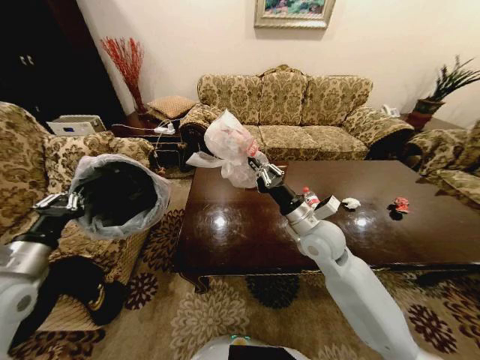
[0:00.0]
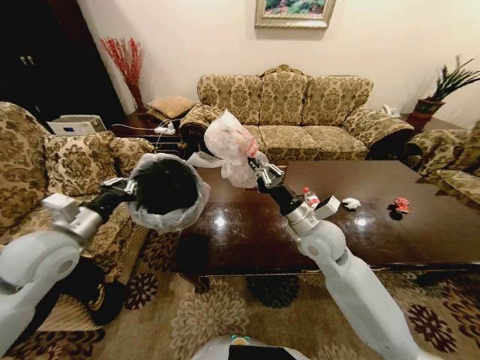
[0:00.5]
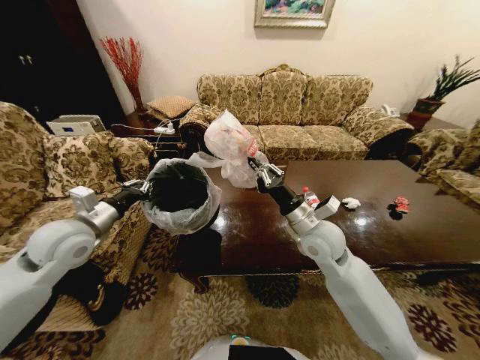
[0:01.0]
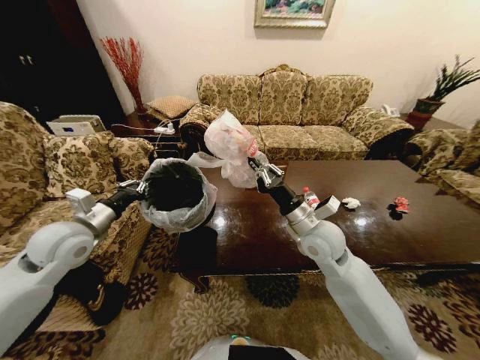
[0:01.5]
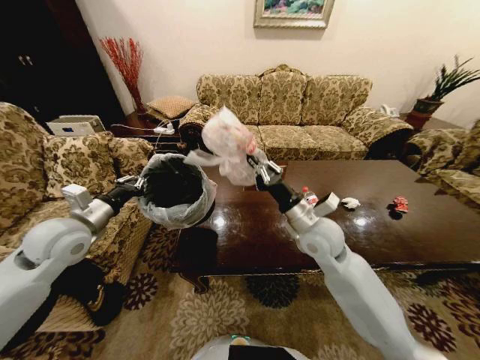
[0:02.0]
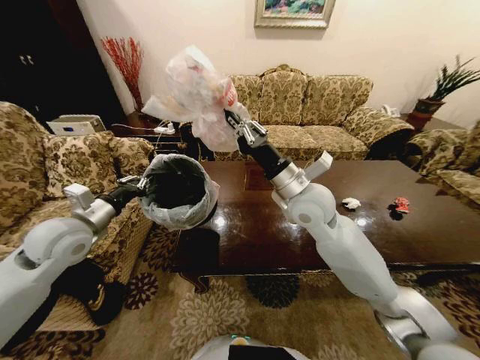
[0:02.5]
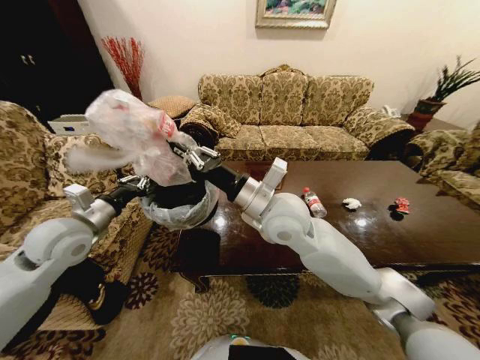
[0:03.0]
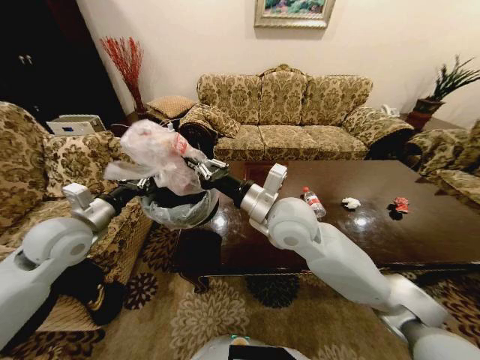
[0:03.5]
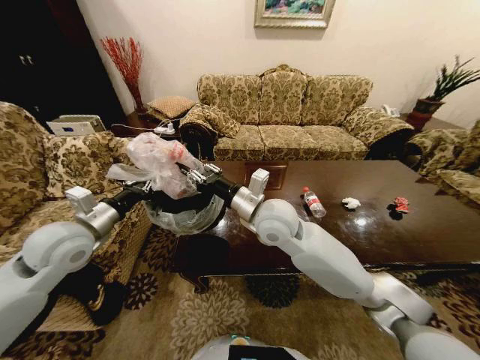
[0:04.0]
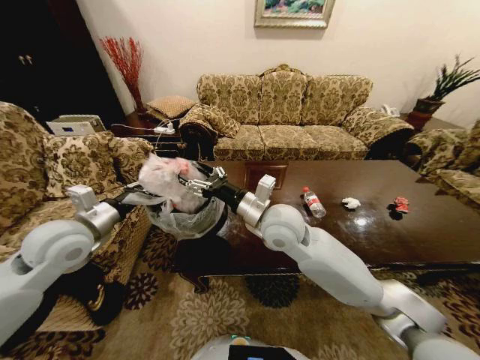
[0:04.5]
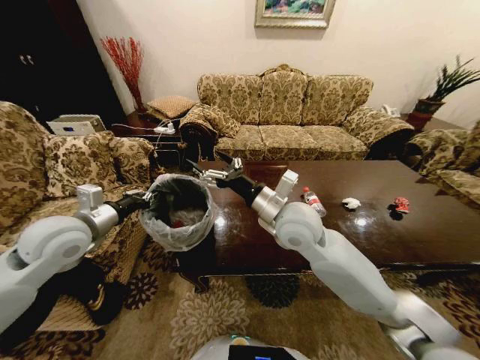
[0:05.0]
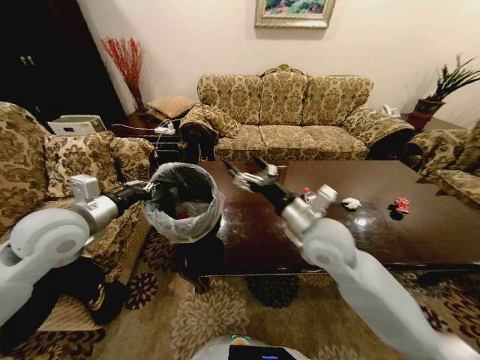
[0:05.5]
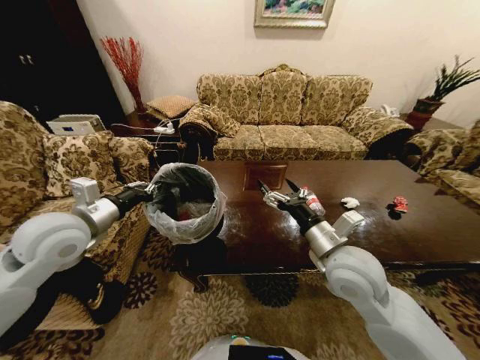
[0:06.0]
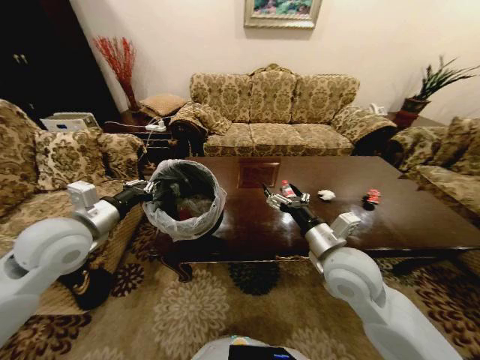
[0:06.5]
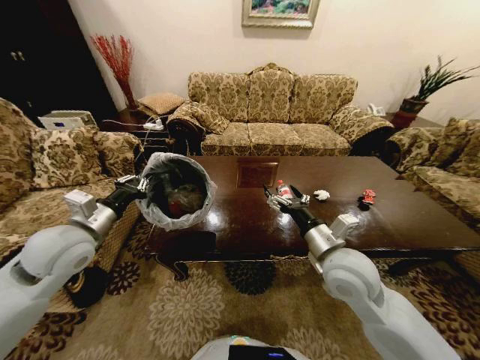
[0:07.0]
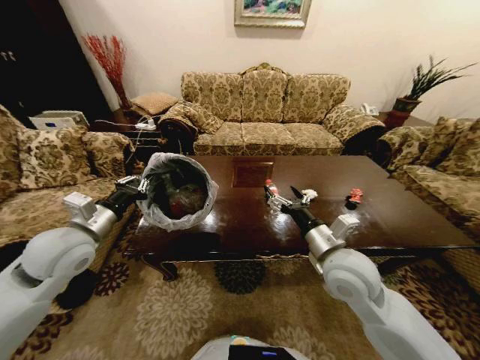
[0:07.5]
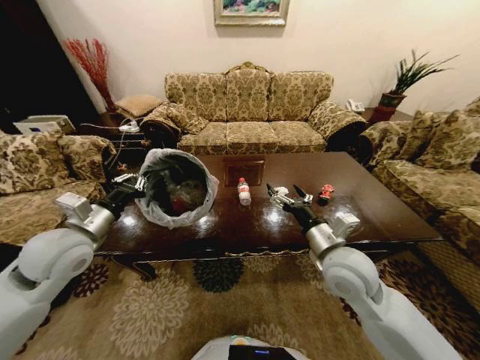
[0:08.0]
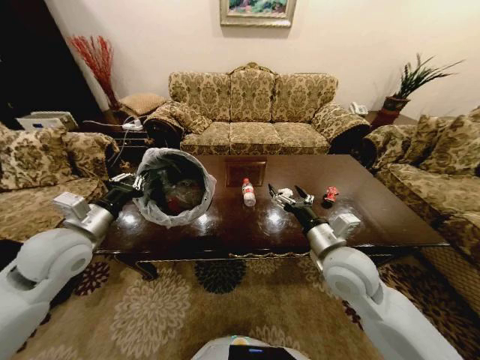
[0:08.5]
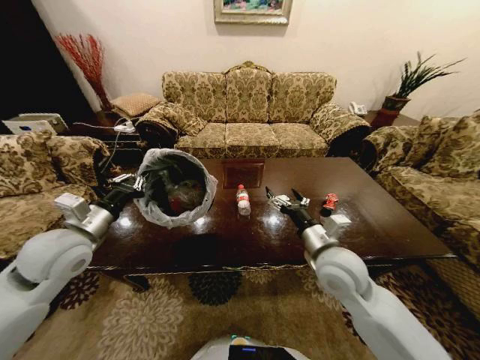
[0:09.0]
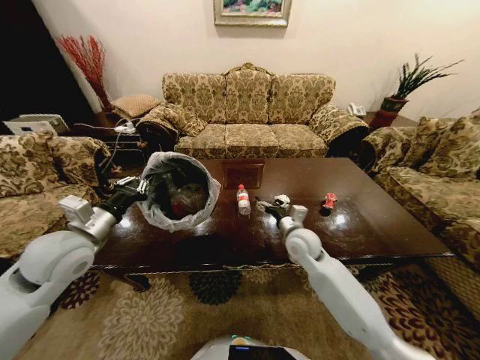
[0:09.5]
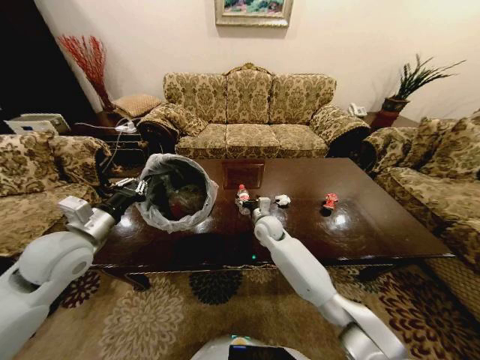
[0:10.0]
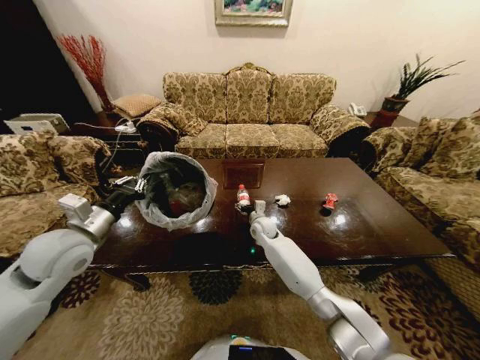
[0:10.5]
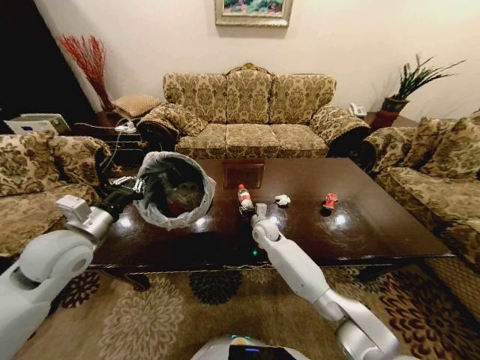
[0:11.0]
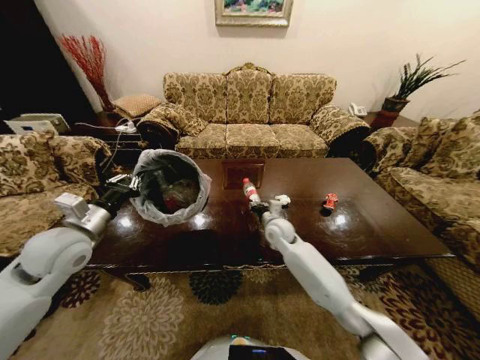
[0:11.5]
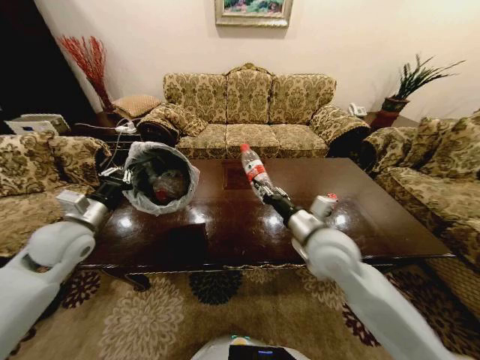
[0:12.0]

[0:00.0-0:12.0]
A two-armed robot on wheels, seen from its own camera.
Task of the whole recording: Move to the front of the table and place the trash on the table into the trash bin.
0:00.0 to 0:02.0: The left gripper heads forward, covering approximately 10 cm.
0:02.0 to 0:04.0: The right gripper is displaced to the left and upward by about 15 cm.
0:04.0 to 0:06.0: The right gripper is displaced to the right and backward by some 15 cm, and opens its fingers.
0:08.0 to 0:10.0: The right gripper travels forward, downward and to the left by roughly 25 cm.
0:10.0 to 0:12.0: The left gripper changes place by approximately 5 cm; the right gripper moves backward, upward and to the right, roughly 25 cm, and closes.

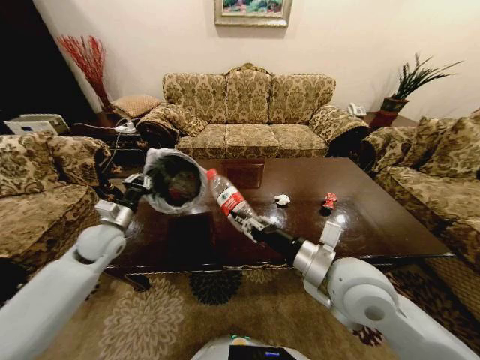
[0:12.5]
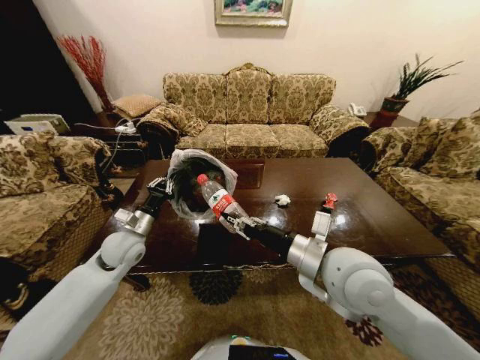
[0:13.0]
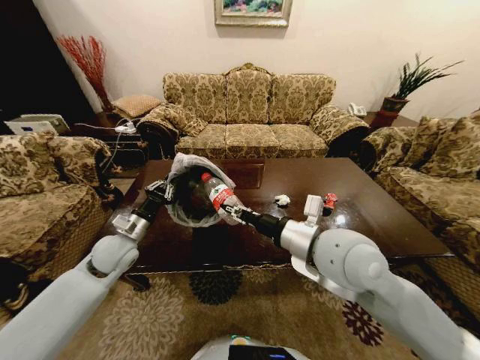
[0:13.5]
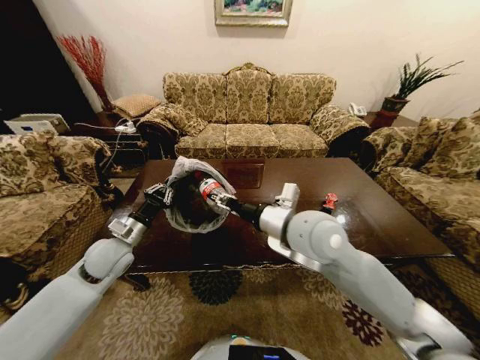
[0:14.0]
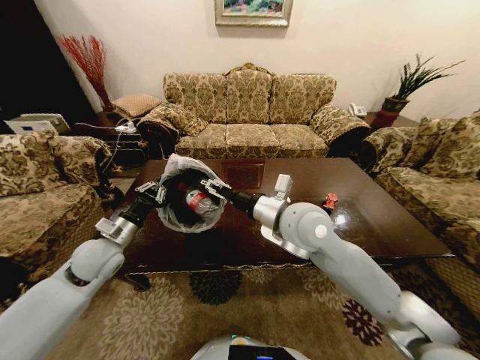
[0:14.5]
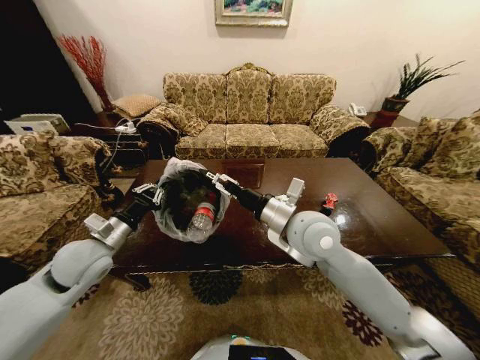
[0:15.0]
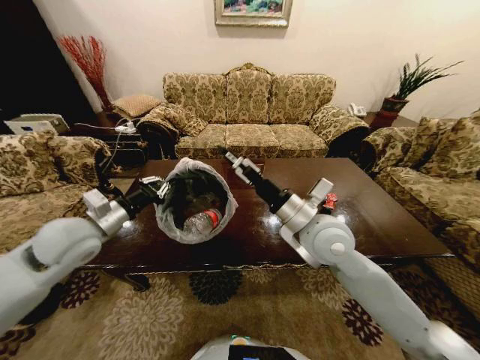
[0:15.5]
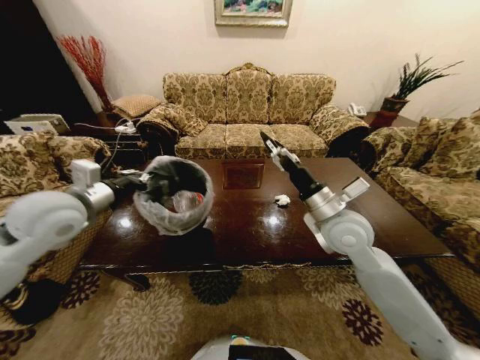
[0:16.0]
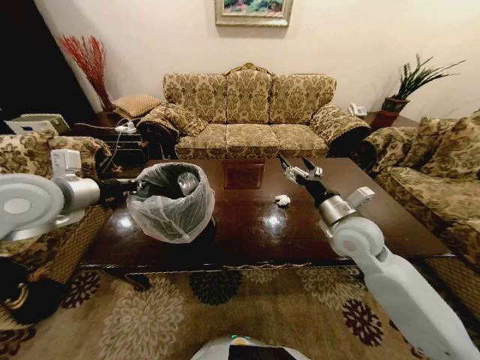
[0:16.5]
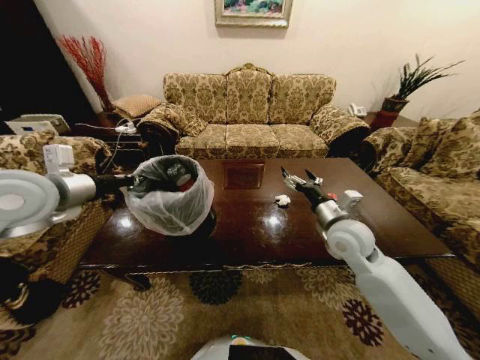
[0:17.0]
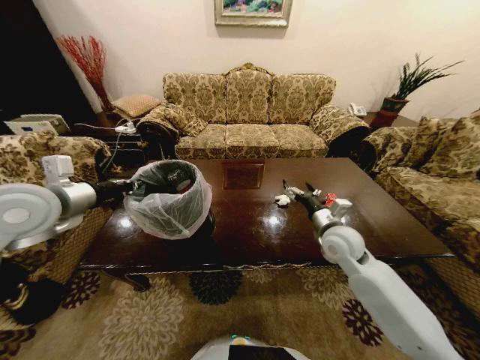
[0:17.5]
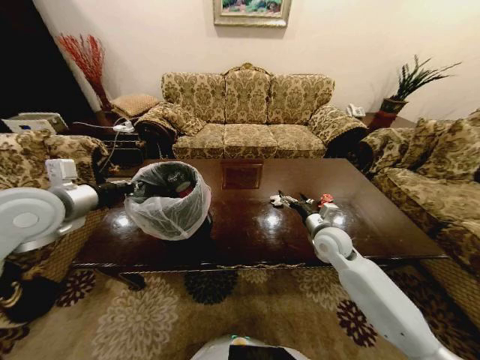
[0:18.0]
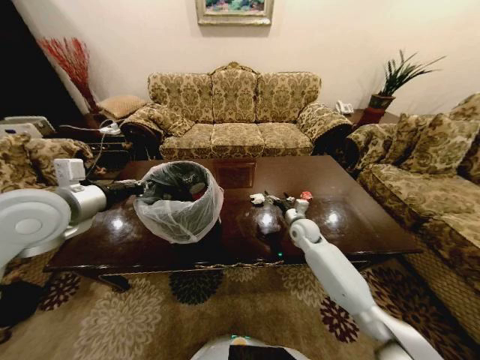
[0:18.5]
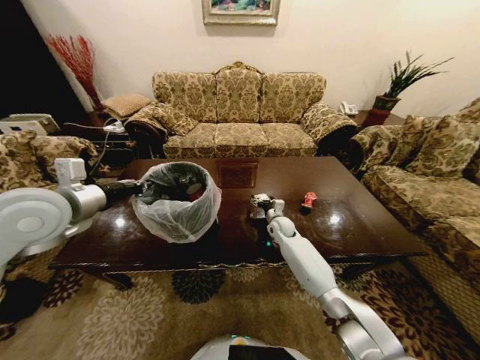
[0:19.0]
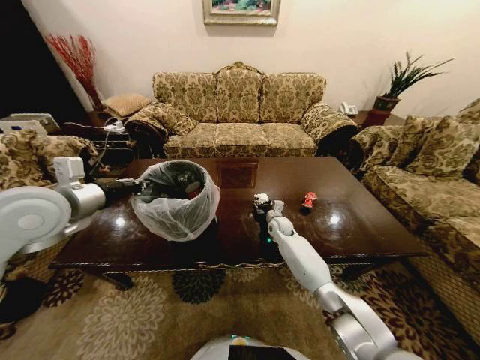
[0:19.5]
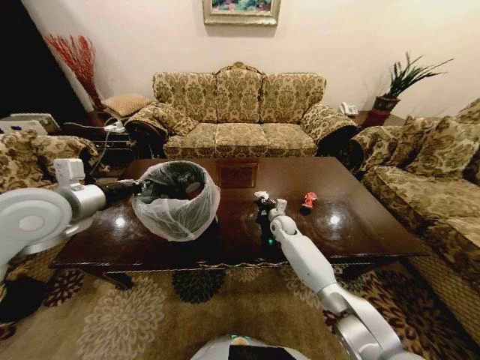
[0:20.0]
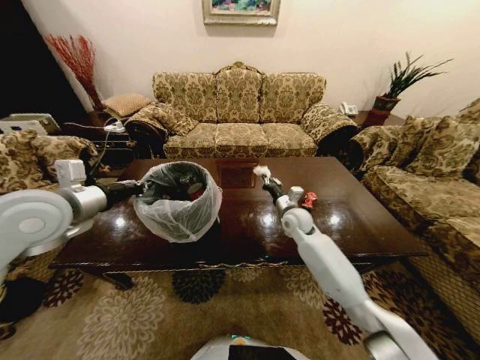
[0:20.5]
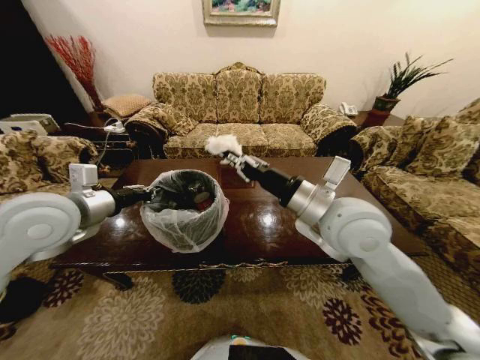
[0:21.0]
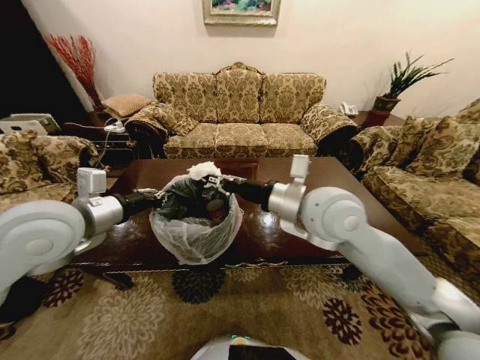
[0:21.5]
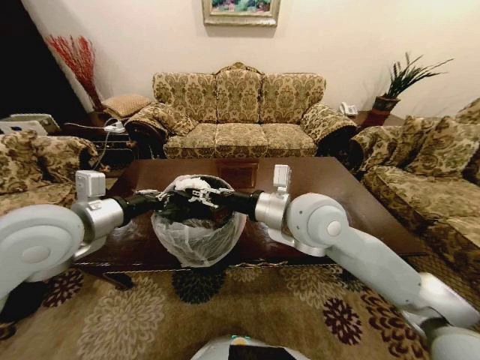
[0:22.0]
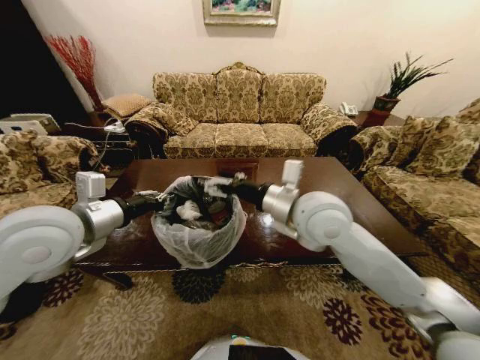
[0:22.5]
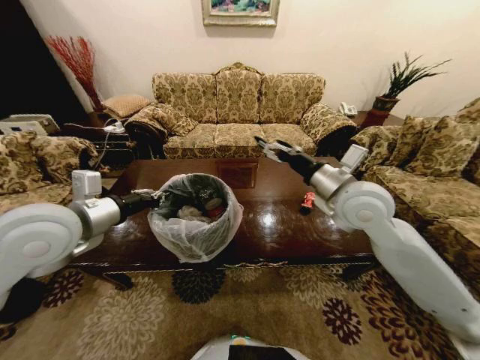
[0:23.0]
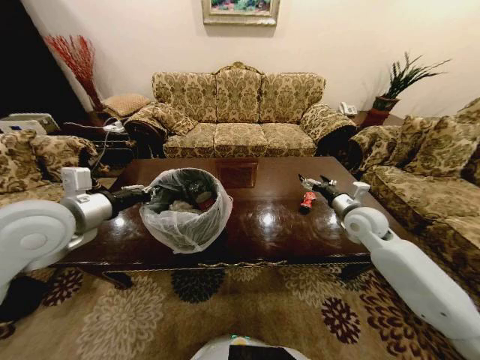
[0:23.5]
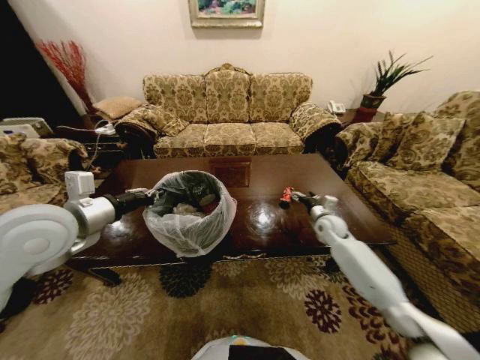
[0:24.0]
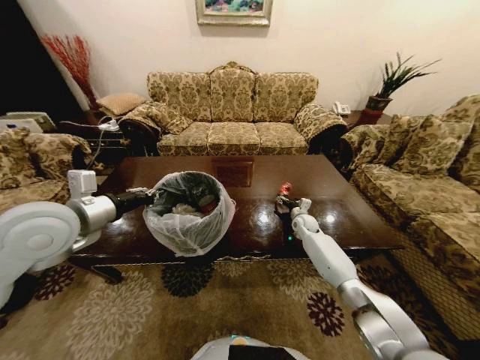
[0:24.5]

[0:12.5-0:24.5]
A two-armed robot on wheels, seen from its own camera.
Task of the whole recording: Move to the front of the table and place the trash on the table into the trash bin.
0:12.5 to 0:14.5: The right gripper travels forward and to the left by some 10 cm, and opens up, while the left gripper shifts some 5 cm backward.
0:14.5 to 0:16.5: The left gripper goes approximately 20 cm upward. The right gripper heads to the right and downward, covering about 15 cm.
0:16.5 to 0:18.5: The right gripper moves downward and forward, about 20 cm.
0:18.5 to 0:20.5: The right gripper moves upward, roughly 5 cm, and closes up.
0:20.5 to 0:22.5: The left gripper goes approximately 5 cm to the right; the right gripper travels upward and backward by some 25 cm, and opens up.
0:22.5 to 0:24.5: The right gripper shifts some 40 cm downward, forward and to the right.

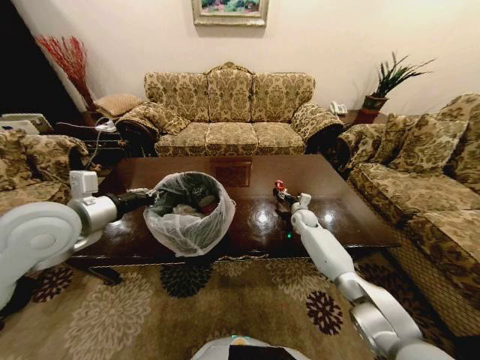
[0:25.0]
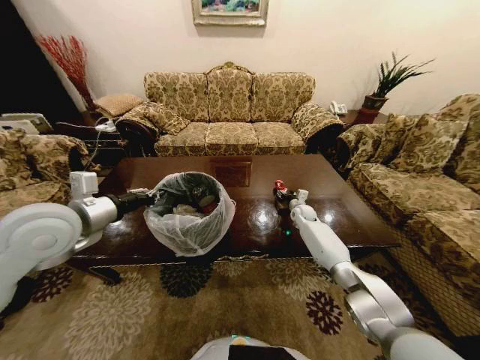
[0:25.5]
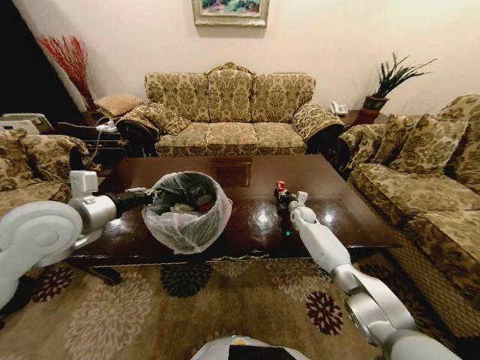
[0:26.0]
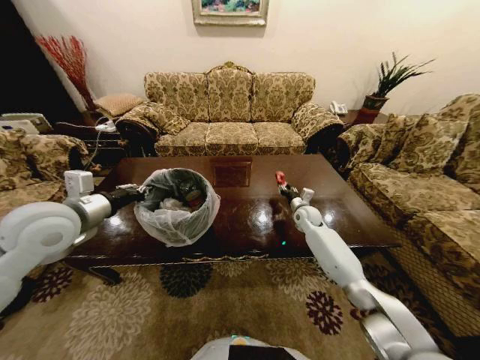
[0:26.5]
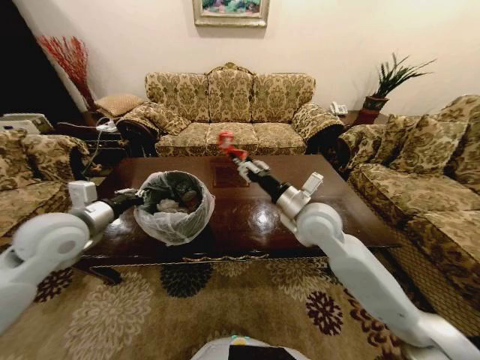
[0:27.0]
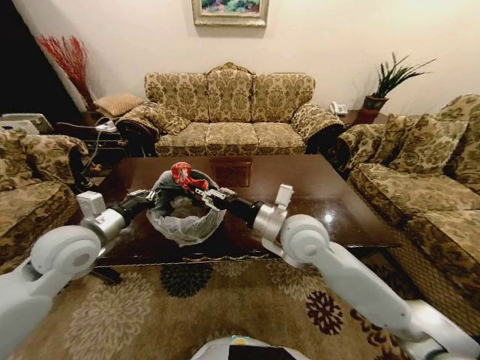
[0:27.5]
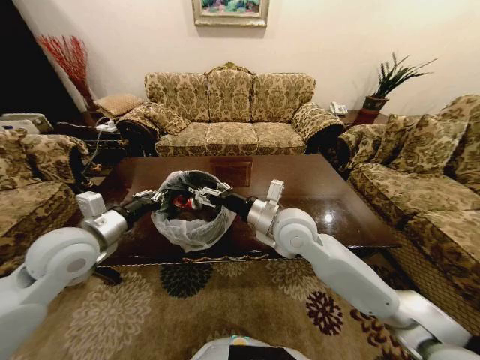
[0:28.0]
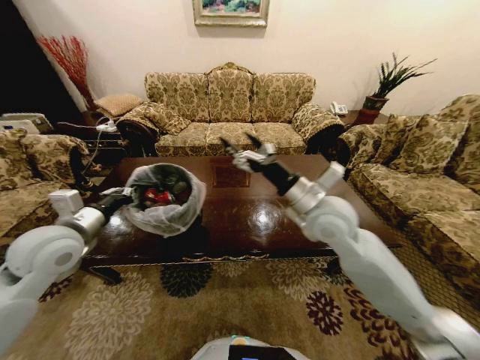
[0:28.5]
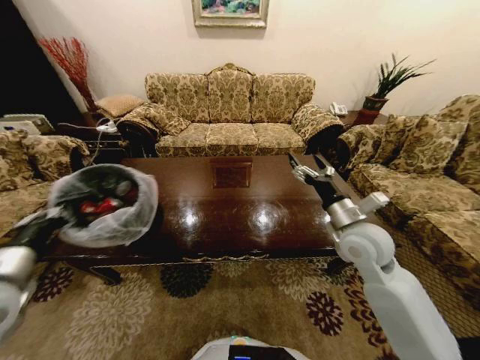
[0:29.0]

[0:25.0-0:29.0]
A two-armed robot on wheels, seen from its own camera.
Task of the whole recording: Move to the front of the table and place the trash on the table into the trash bin.
0:25.0 to 0:27.0: The left gripper travels downward by roughly 5 cm. Meanwhile the right gripper is displaced upward, backward and to the left by about 35 cm, and closes up.
0:27.0 to 0:29.0: The left gripper moves backward, approximately 10 cm. The right gripper shifts roughly 10 cm to the right, and opens.
